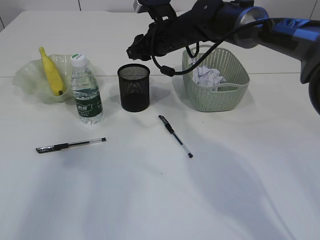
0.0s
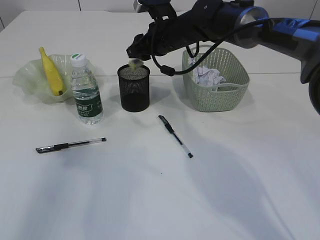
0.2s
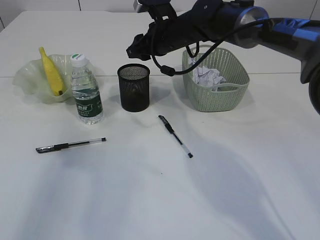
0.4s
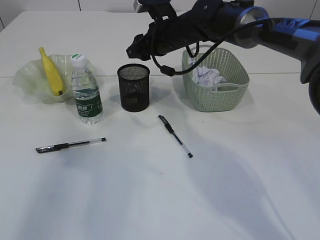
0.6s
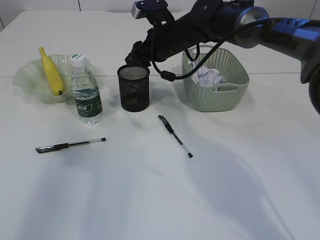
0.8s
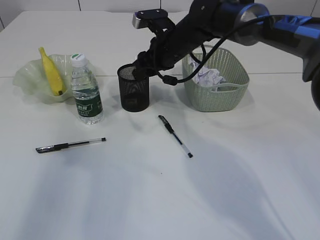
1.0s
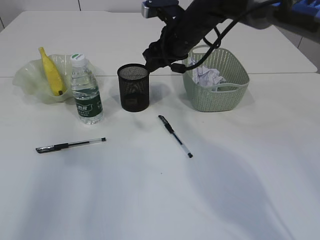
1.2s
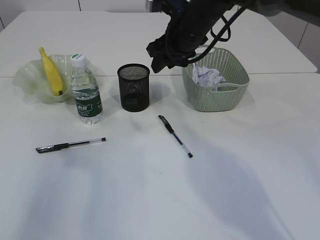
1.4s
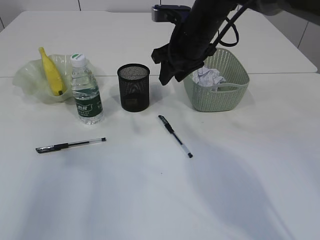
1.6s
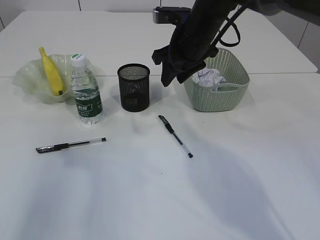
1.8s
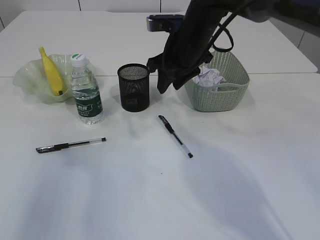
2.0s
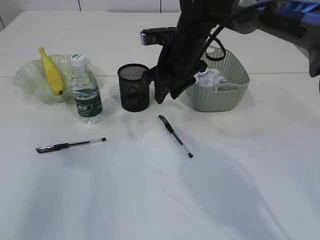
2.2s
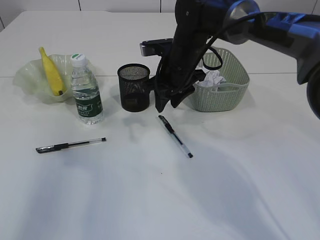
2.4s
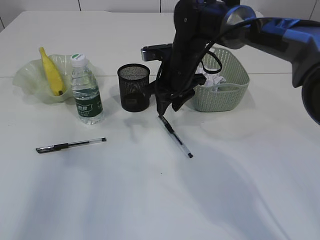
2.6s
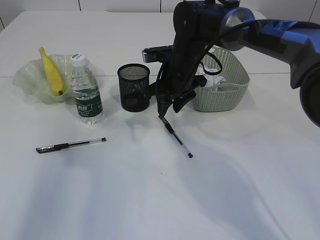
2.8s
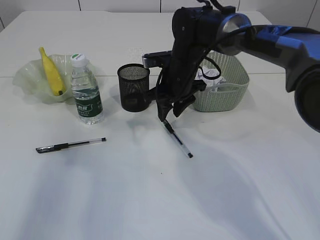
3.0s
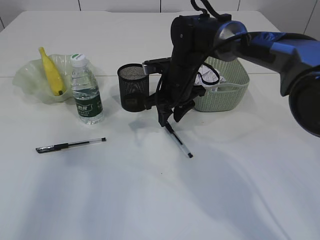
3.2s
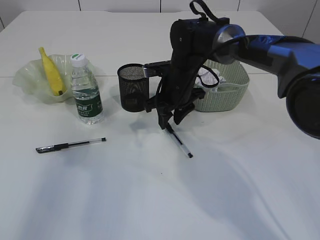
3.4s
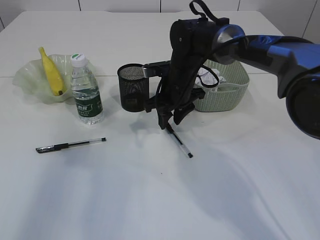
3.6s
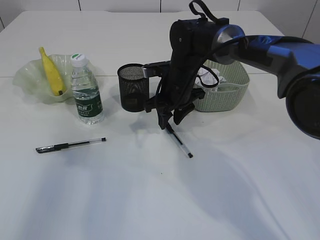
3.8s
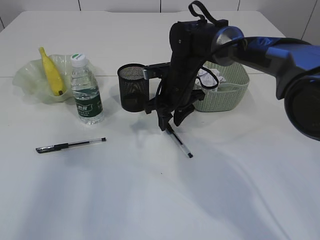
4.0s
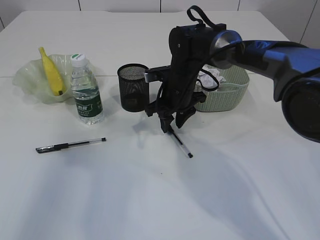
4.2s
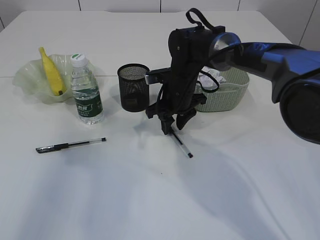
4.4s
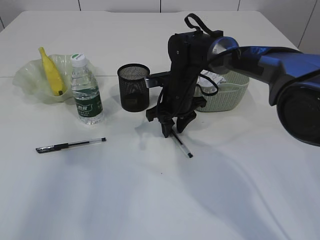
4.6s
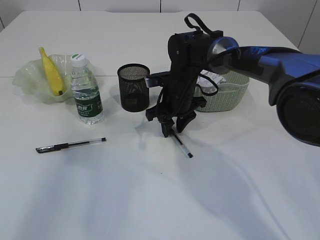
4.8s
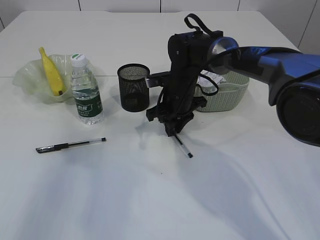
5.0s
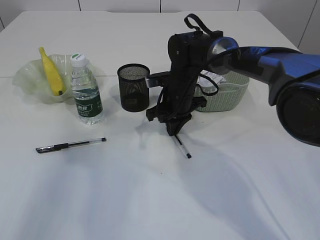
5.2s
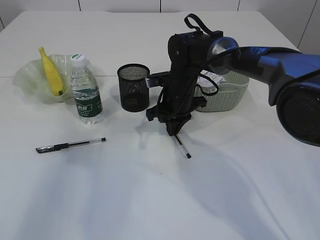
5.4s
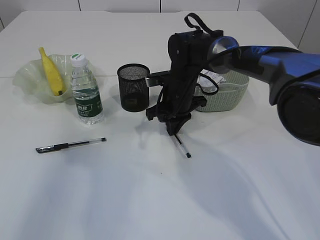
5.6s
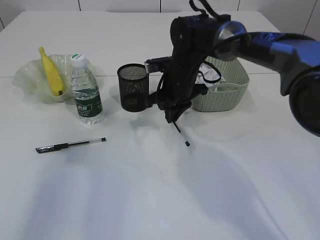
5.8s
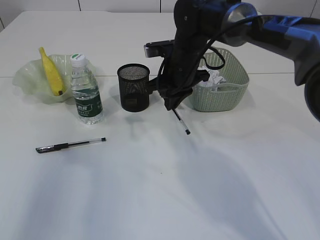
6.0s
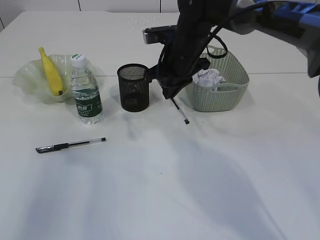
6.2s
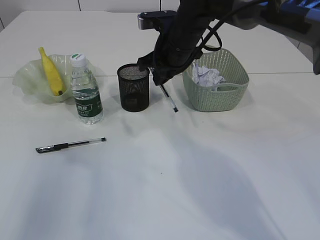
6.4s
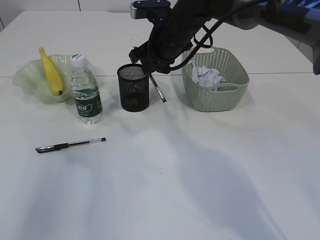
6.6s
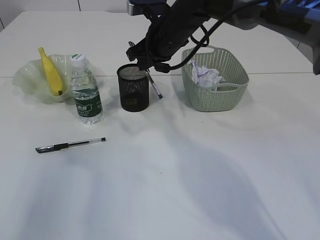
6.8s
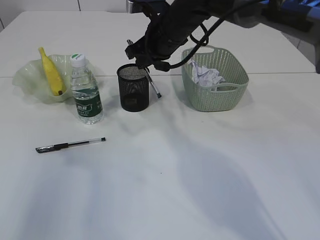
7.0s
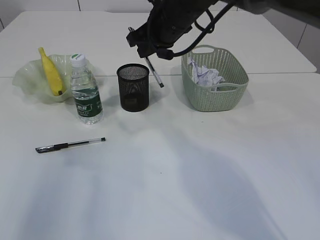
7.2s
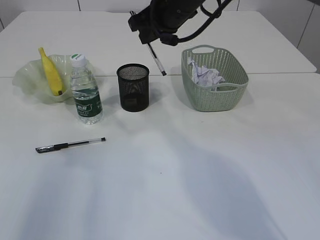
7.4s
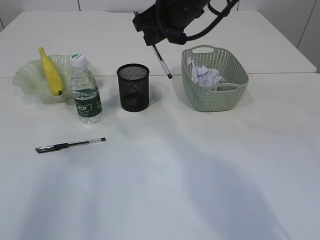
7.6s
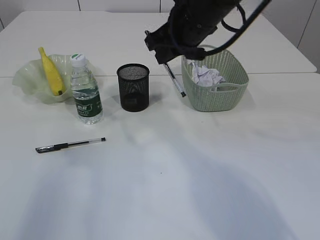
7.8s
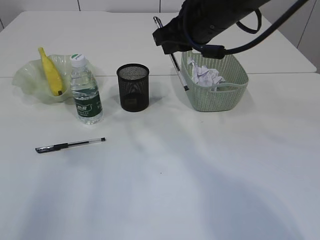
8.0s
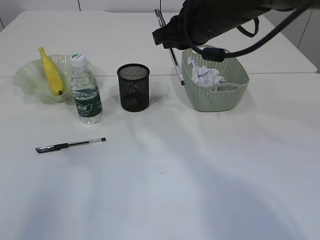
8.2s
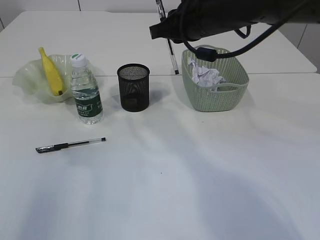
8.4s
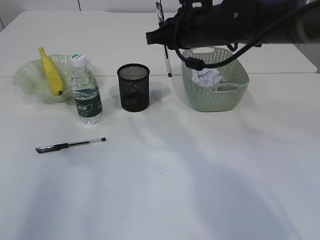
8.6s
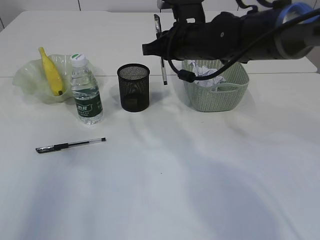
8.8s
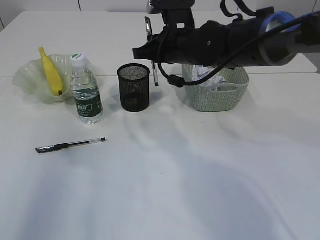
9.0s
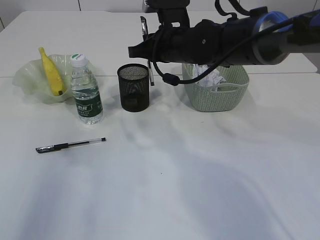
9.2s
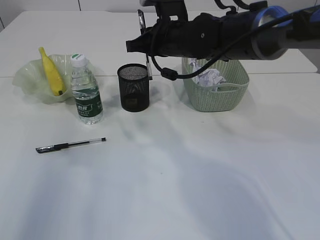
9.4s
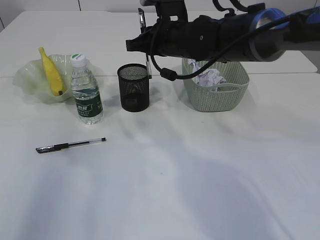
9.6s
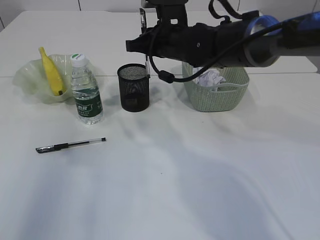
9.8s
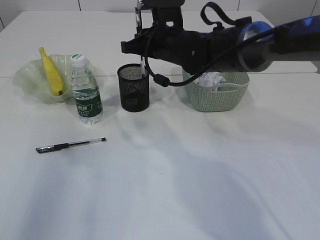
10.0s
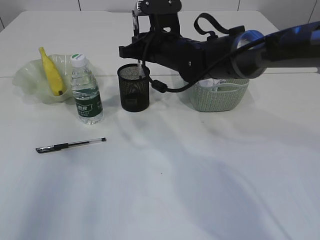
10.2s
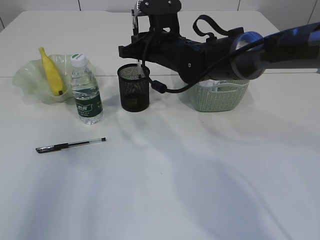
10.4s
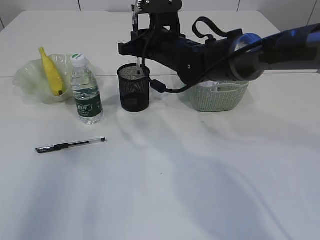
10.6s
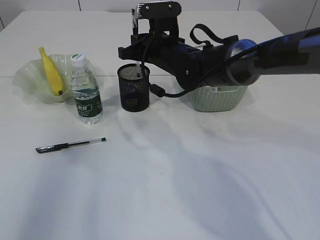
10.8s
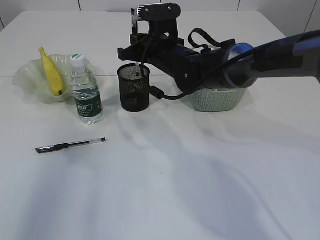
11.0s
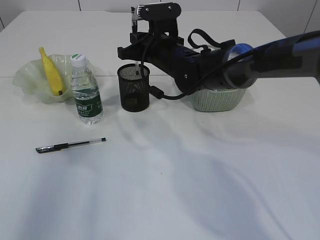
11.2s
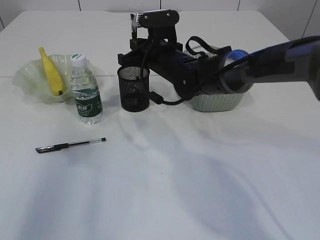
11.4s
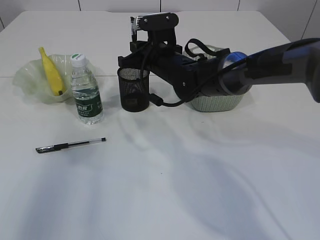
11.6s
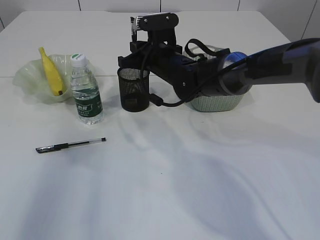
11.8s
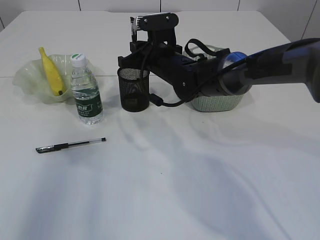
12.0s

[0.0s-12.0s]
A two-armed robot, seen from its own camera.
Step, 0.6s to 6.0s: Pick up the pen with right arm.
0.0s to 1.6s: The right gripper heads backward, covering approximately 5 cm.
1.6s to 3.0s: The right gripper is displaced downward by some 10 cm.
3.0s to 4.4s: There are only small adjustments of the grippers.
4.4s to 6.0s: The right gripper goes about 5 cm upward, and closes its fingers.
6.0s to 7.6s: The right gripper moves upward, about 10 cm.
7.6s to 9.0s: The right gripper travels downward by about 10 cm.
9.0s to 12.0s: The grippers make only small movements.

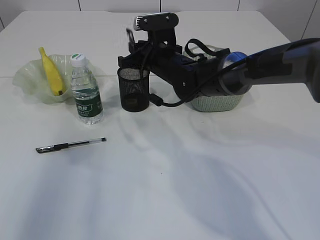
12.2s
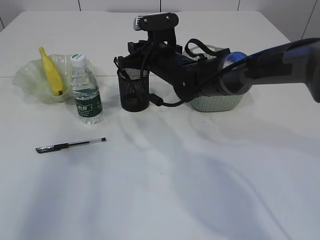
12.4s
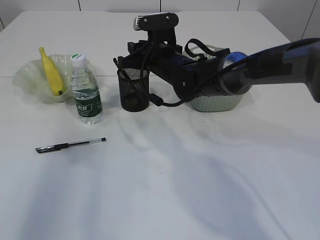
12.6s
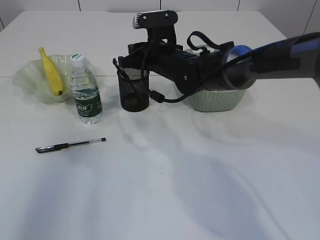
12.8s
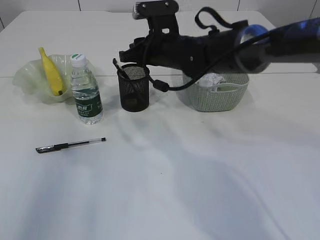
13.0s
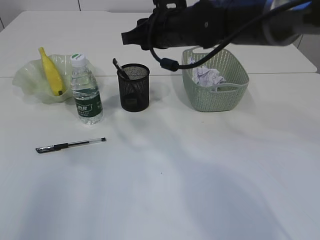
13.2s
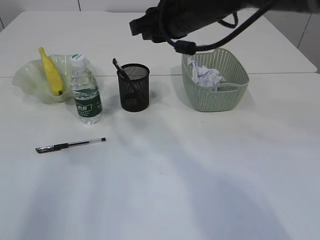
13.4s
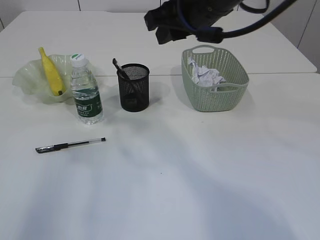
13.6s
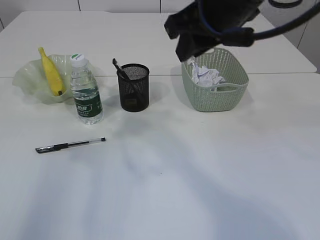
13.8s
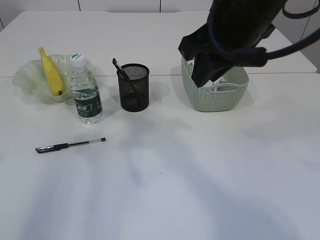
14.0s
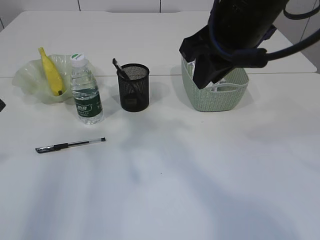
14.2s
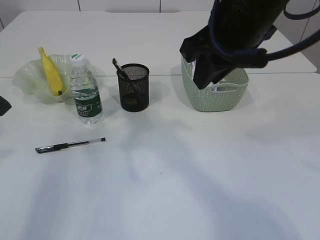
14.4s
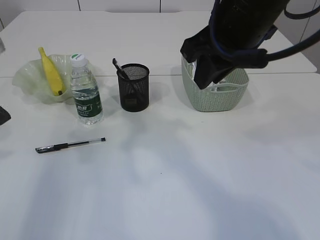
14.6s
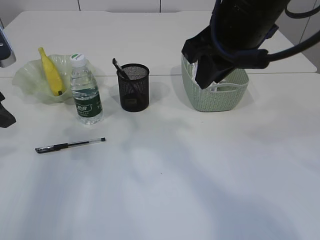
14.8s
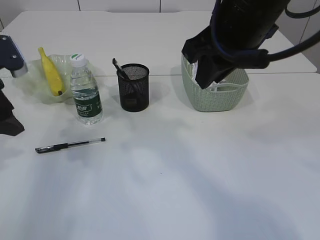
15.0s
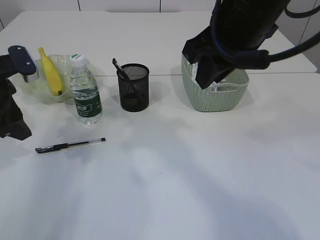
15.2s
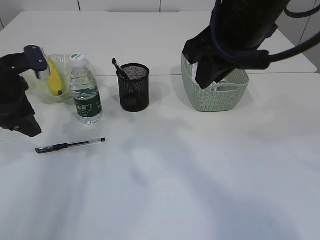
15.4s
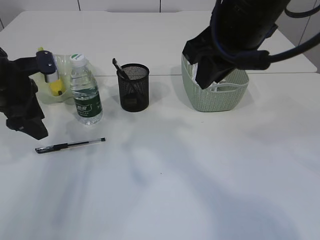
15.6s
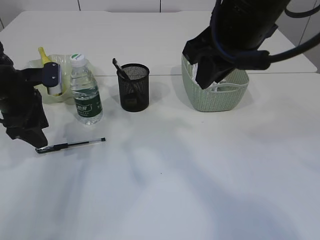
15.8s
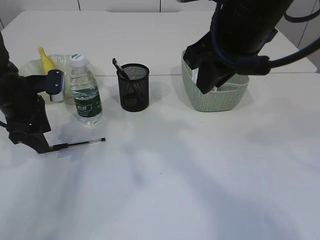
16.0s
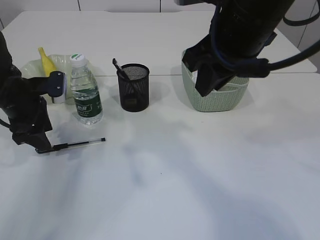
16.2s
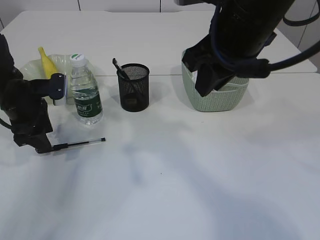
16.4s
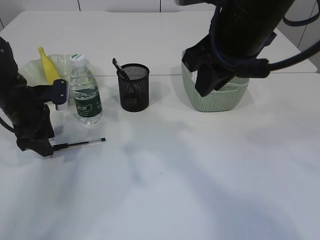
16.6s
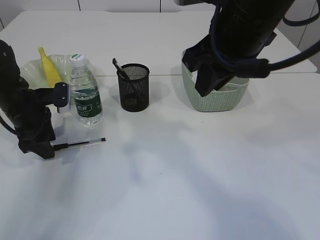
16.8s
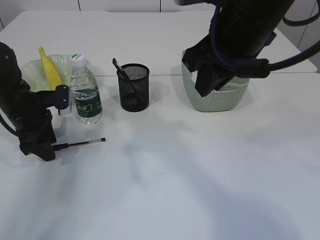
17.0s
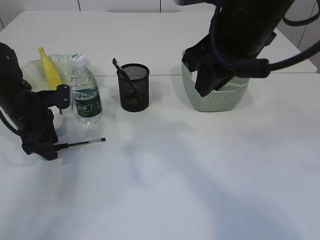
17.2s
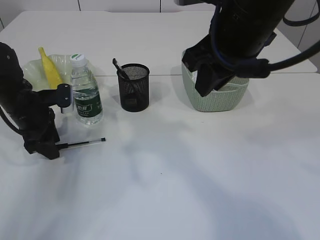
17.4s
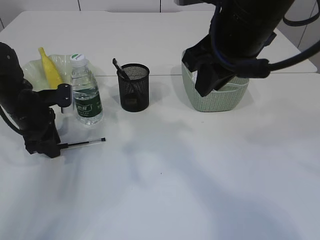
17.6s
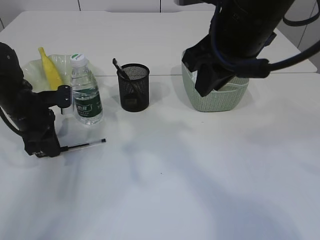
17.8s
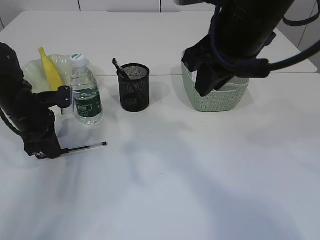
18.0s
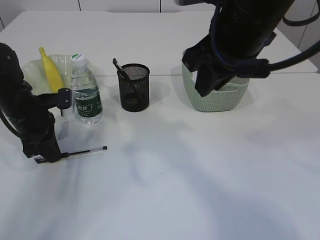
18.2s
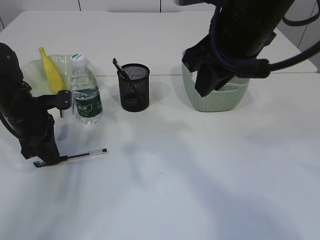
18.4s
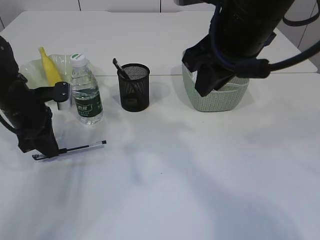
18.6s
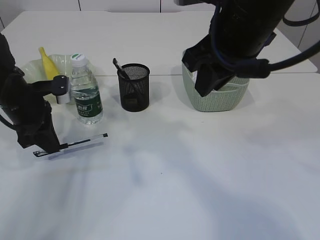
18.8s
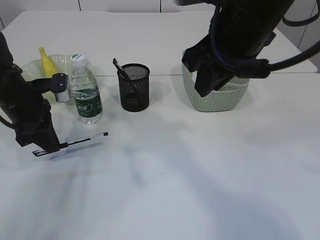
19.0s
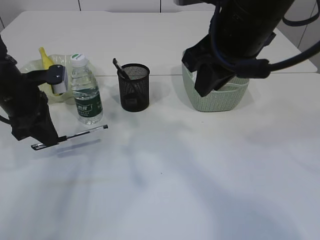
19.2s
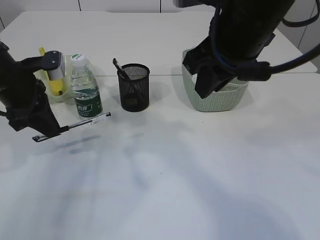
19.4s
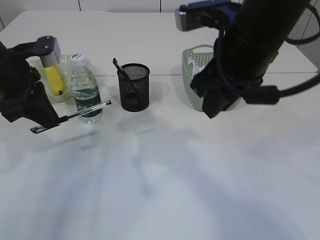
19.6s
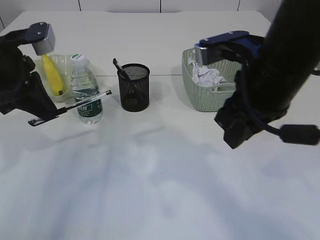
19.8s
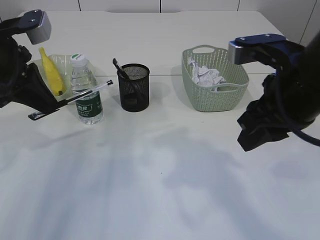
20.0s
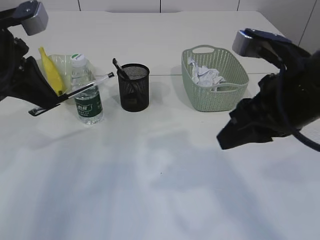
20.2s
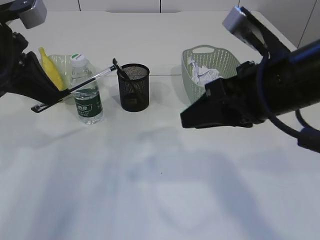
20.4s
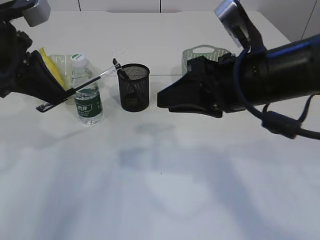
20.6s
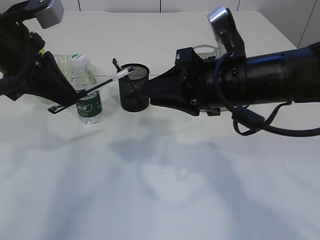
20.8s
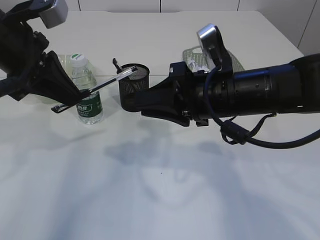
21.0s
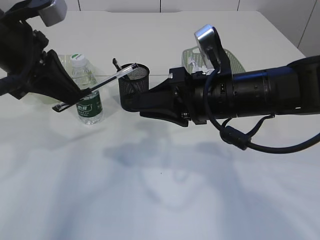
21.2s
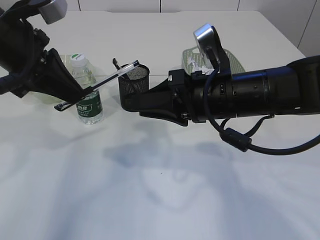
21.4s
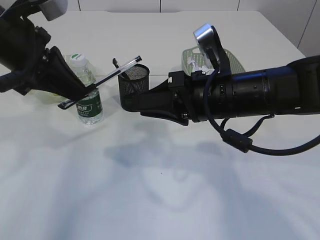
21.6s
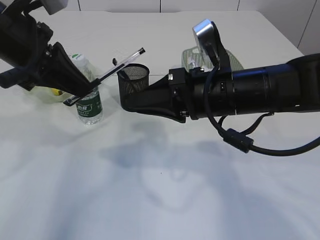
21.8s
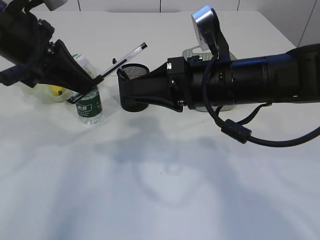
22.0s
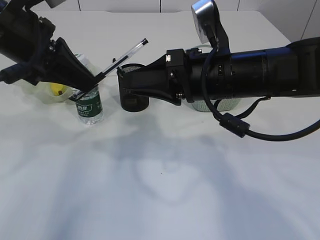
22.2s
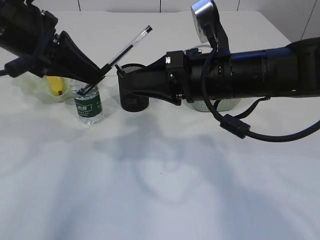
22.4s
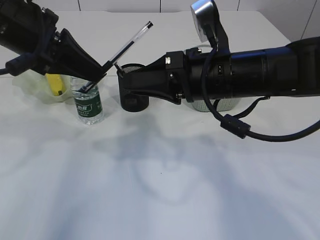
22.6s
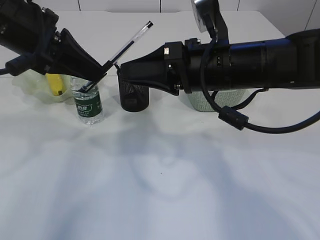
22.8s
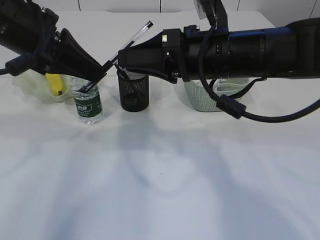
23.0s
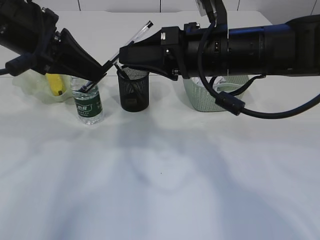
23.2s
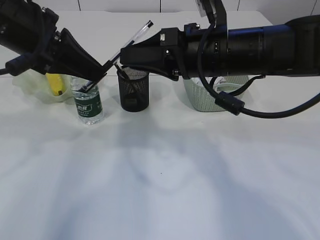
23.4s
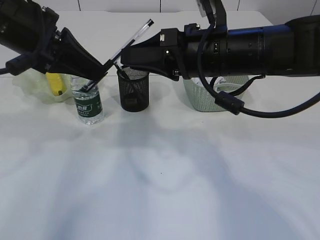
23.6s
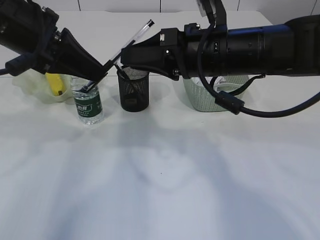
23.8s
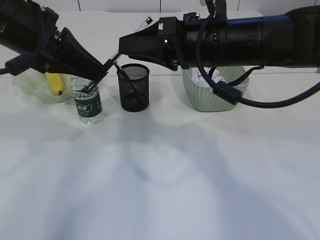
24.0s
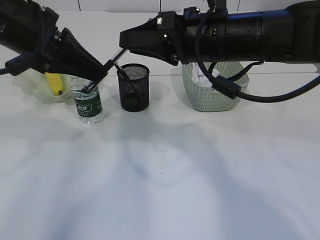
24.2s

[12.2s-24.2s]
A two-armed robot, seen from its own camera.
Step, 13.4s to 19.8s: Pick up the pen with left arm.
12.2s to 13.8s: The right gripper goes about 20 cm upward and backward.
13.8s to 15.2s: The left gripper travels downward and forward by approximately 15 cm.
15.2s to 16.6s: The left gripper moves downward and forward, roughly 10 cm.
16.6s to 18.2s: The left gripper closes up.
18.2s to 19.8s: The right gripper moves roughly 5 cm. Meanwhile the left gripper shifts about 15 cm upward.
19.8s to 21.2s: The right gripper is displaced downward by approximately 5 cm, while the left gripper moves roughly 5 cm.
